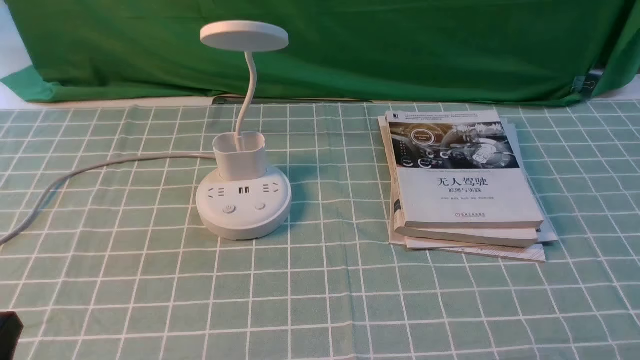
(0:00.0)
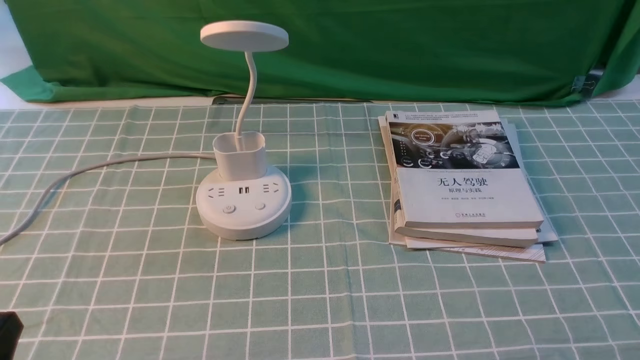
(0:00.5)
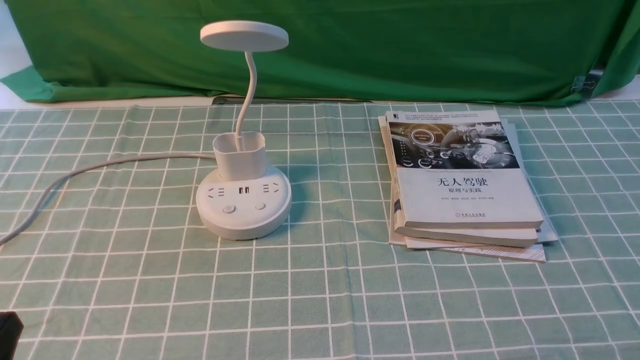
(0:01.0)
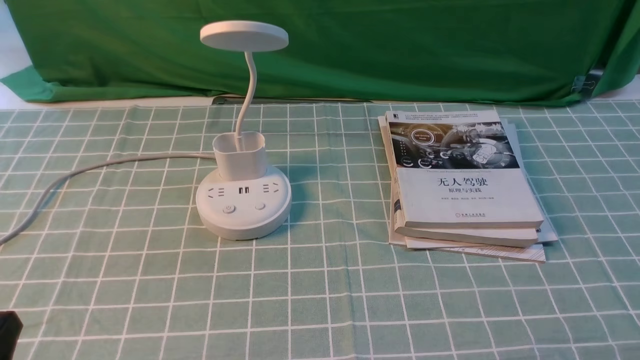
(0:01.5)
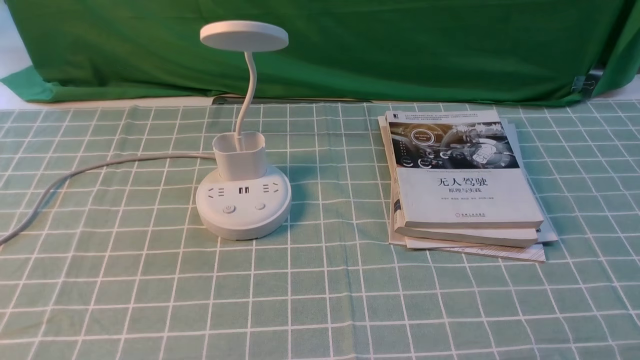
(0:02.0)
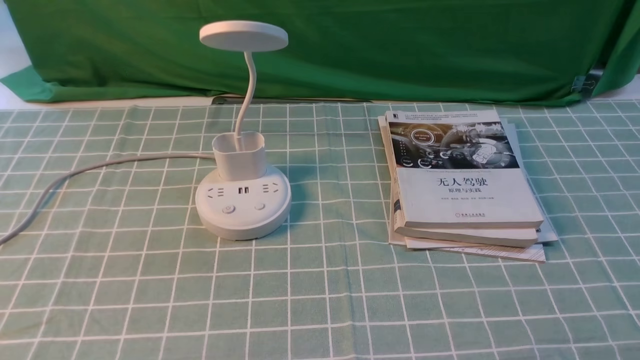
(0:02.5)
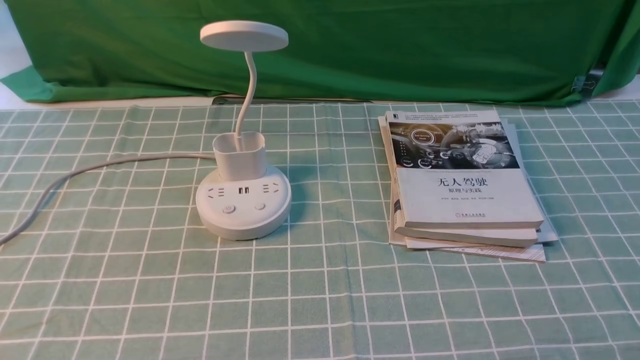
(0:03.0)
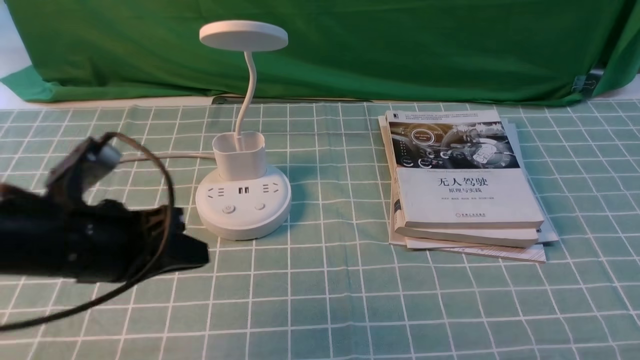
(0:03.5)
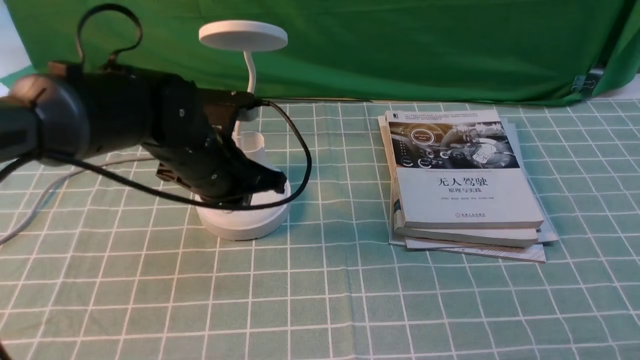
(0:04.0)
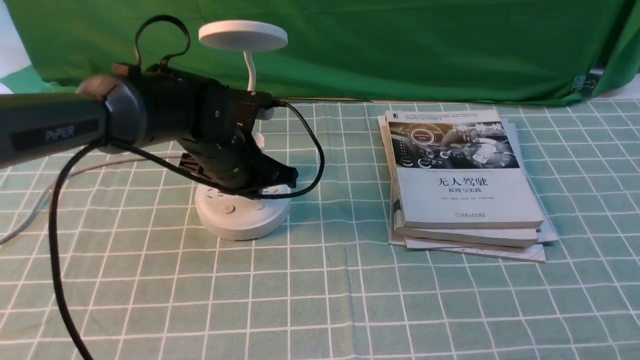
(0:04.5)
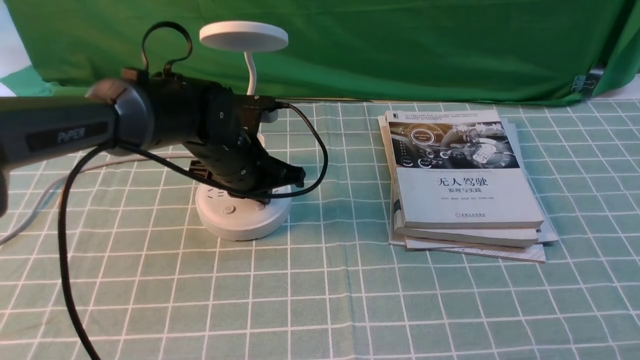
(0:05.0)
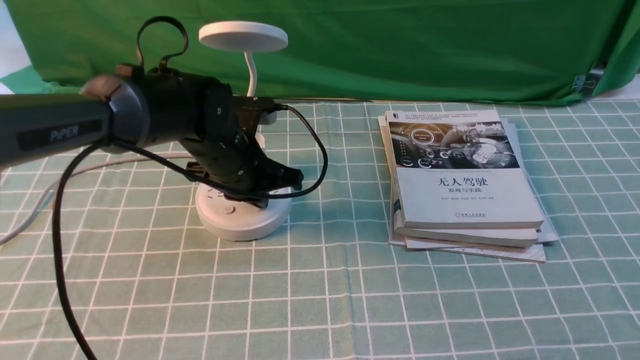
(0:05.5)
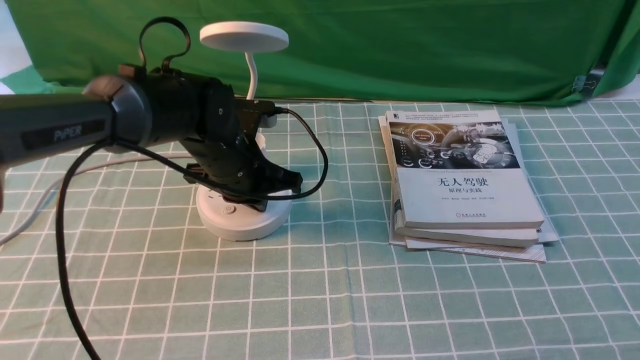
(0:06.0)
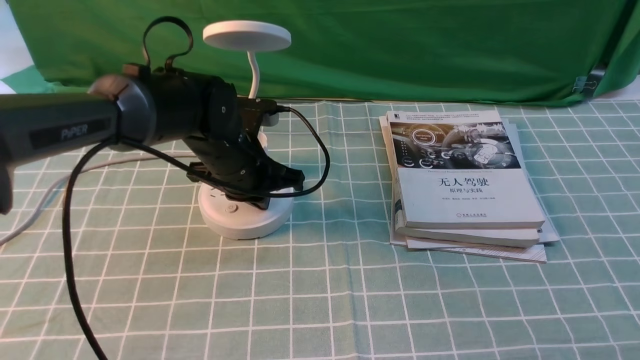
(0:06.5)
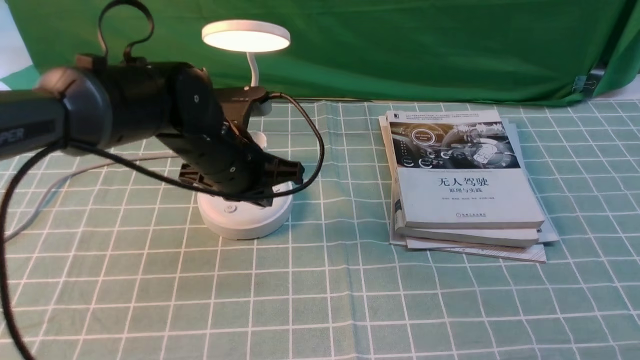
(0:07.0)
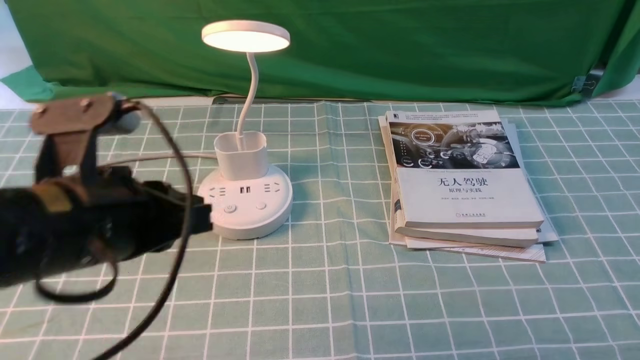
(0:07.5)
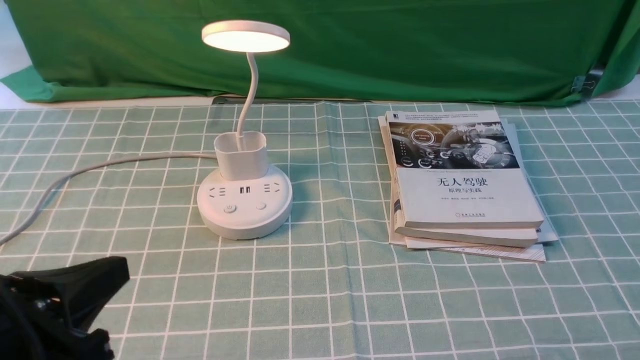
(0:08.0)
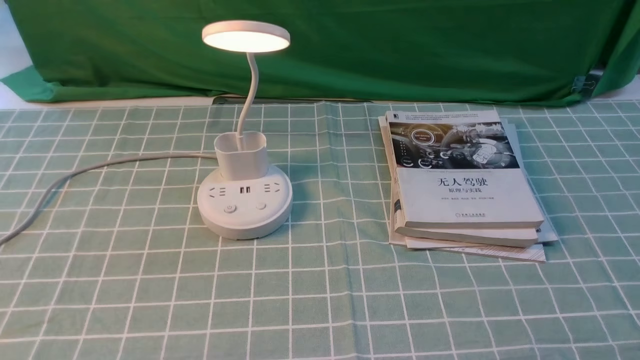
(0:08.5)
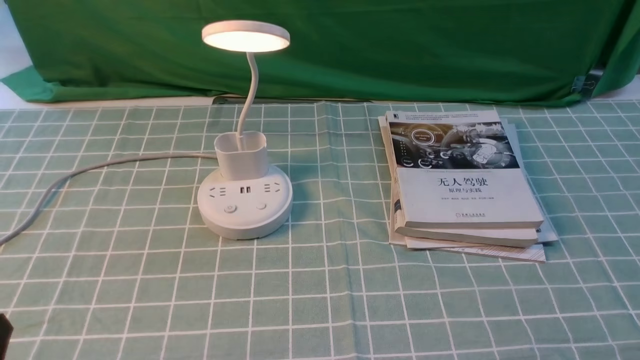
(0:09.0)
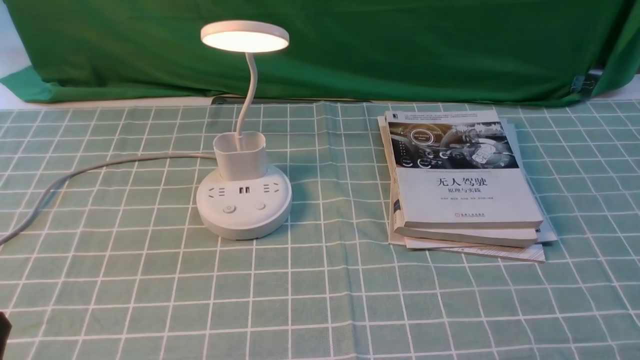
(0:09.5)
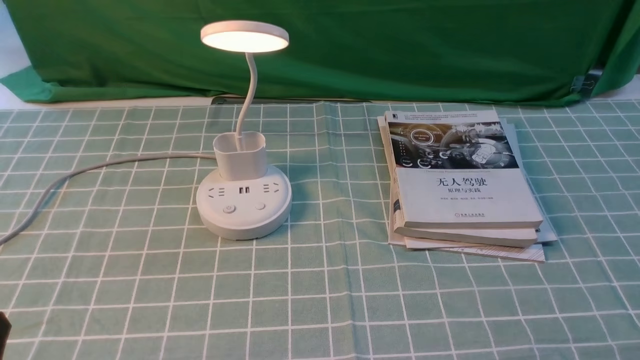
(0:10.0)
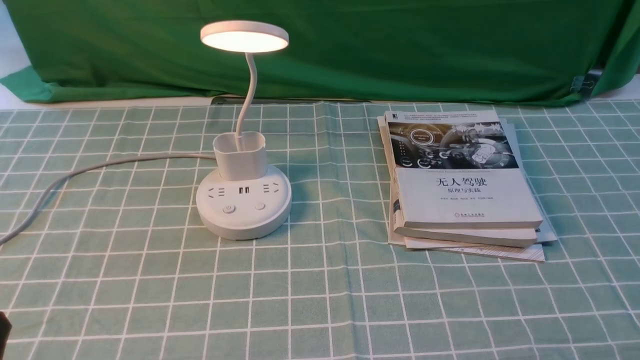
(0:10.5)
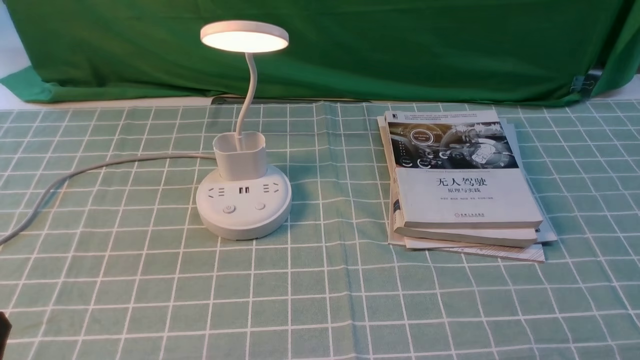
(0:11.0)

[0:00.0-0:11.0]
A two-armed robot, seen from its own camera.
Step, 0:00.0 to 0:07.0: use the left arm to press the button switch on the lamp holder.
0:02.0 to 0:03.5: The left gripper shifts approximately 20 cm forward.
0:03.5 to 0:05.5: The left gripper goes roughly 20 cm forward, to the right and downward, and closes its fingers.
0:05.5 to 0:07.5: The left gripper moves backward, upward and to the left, some 25 cm.
0:07.5 to 0:09.0: The left gripper travels backward, to the left and downward by about 20 cm.
0:09.0 to 0:11.0: The two grippers keep their place.
